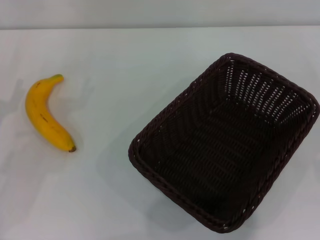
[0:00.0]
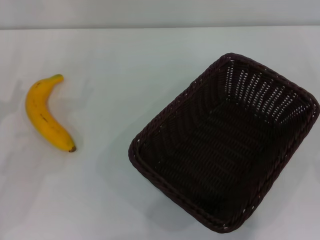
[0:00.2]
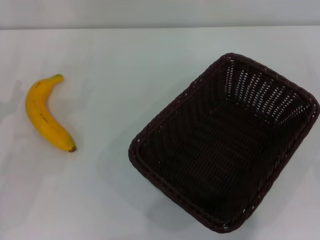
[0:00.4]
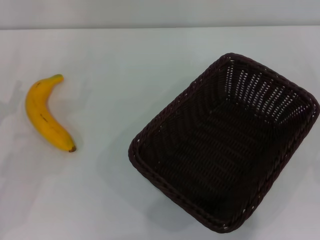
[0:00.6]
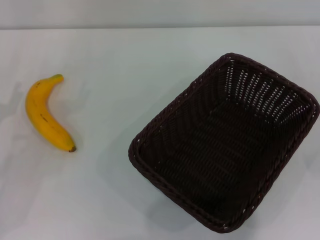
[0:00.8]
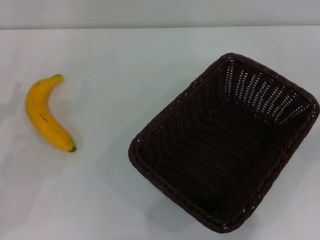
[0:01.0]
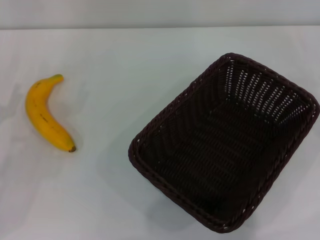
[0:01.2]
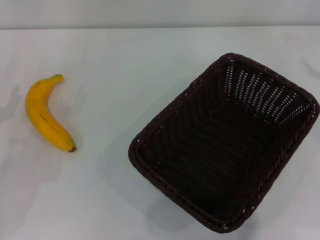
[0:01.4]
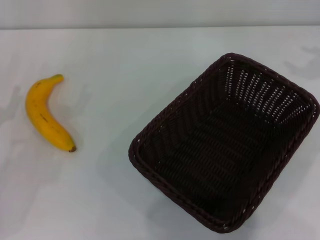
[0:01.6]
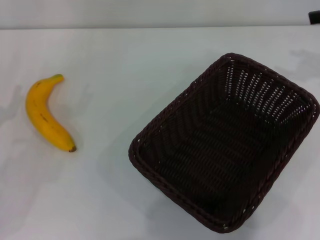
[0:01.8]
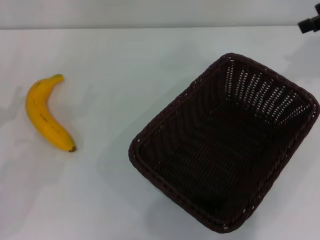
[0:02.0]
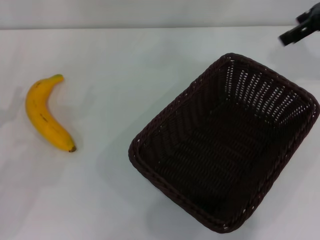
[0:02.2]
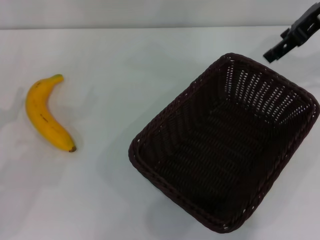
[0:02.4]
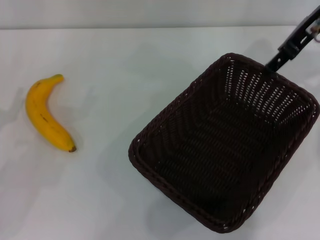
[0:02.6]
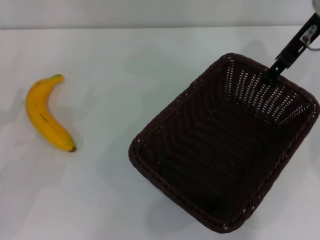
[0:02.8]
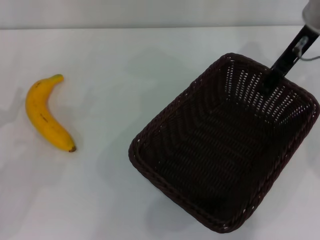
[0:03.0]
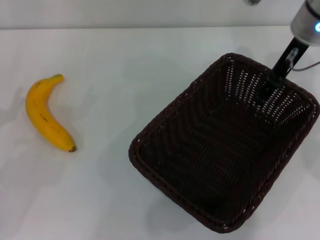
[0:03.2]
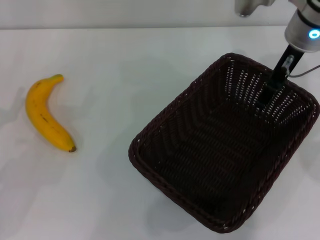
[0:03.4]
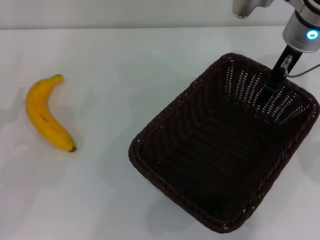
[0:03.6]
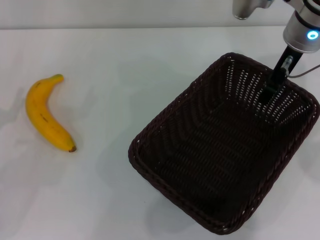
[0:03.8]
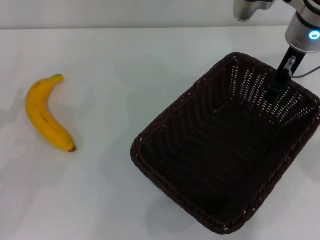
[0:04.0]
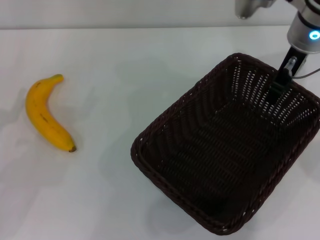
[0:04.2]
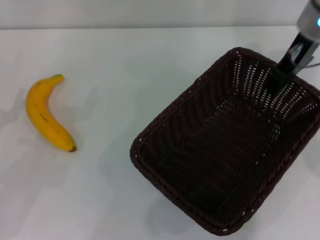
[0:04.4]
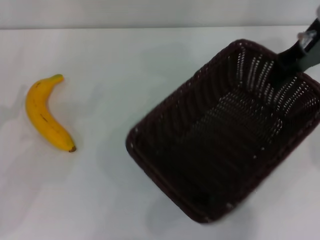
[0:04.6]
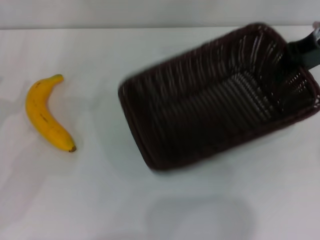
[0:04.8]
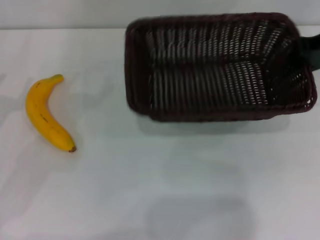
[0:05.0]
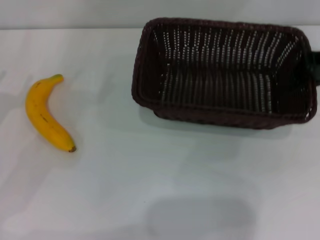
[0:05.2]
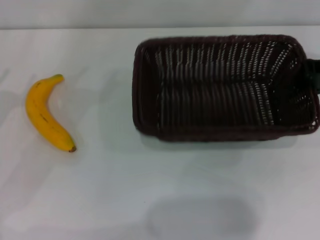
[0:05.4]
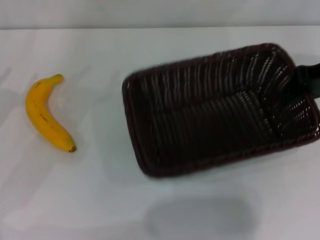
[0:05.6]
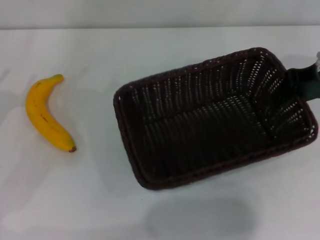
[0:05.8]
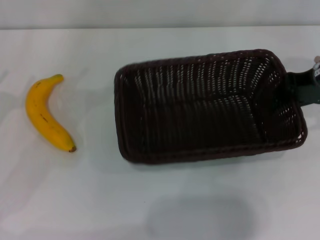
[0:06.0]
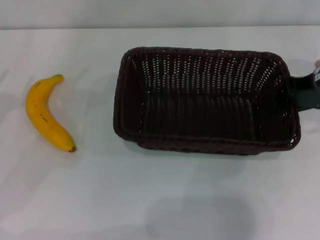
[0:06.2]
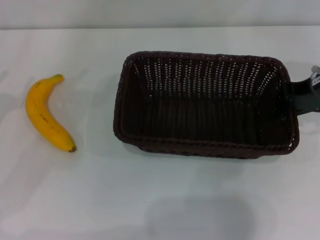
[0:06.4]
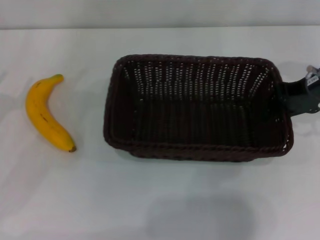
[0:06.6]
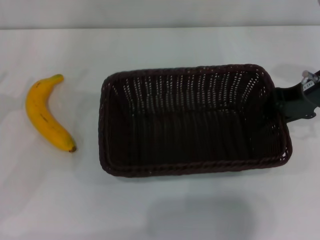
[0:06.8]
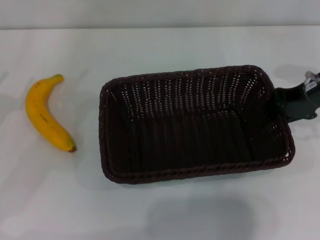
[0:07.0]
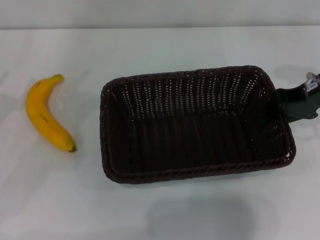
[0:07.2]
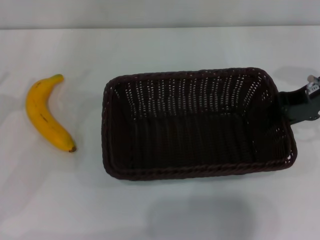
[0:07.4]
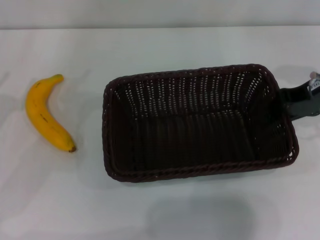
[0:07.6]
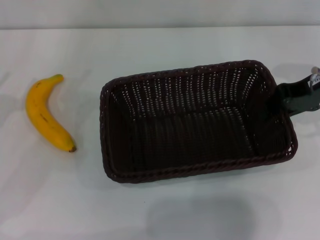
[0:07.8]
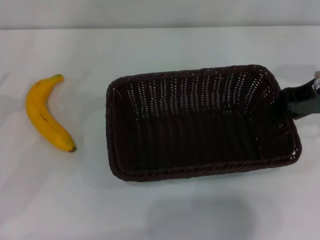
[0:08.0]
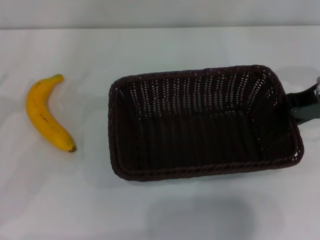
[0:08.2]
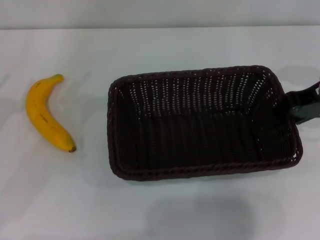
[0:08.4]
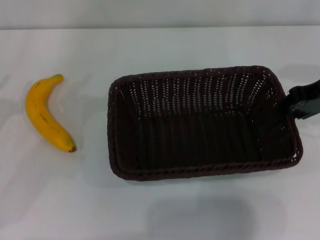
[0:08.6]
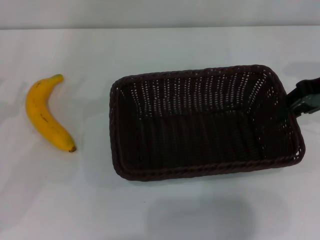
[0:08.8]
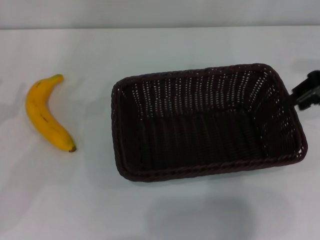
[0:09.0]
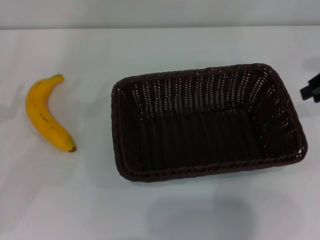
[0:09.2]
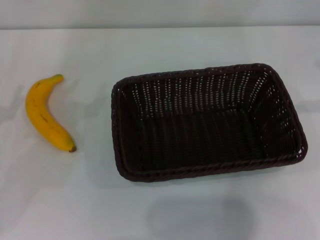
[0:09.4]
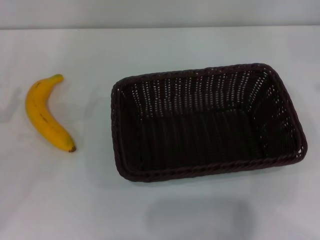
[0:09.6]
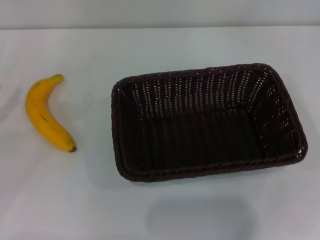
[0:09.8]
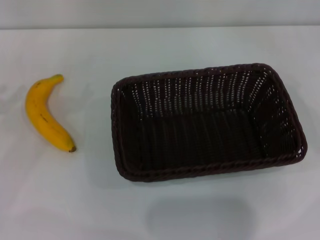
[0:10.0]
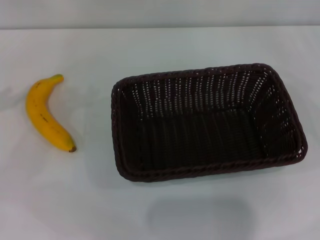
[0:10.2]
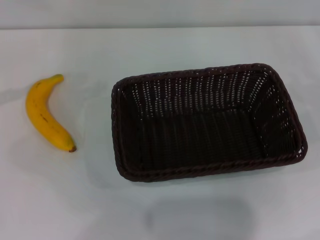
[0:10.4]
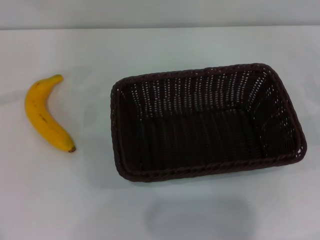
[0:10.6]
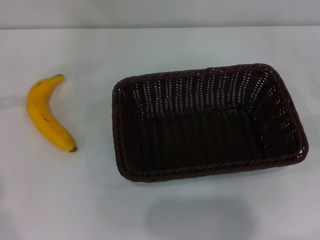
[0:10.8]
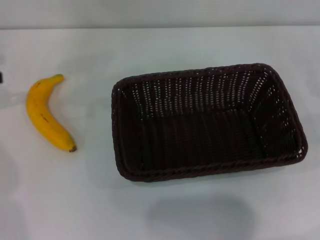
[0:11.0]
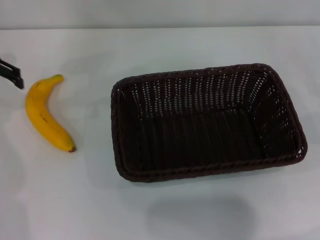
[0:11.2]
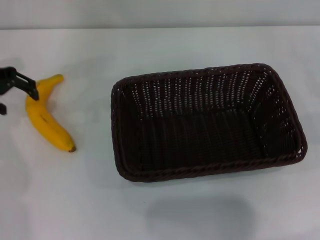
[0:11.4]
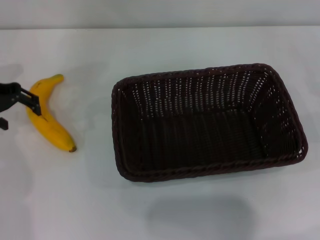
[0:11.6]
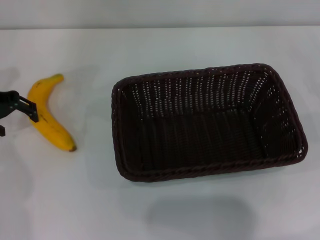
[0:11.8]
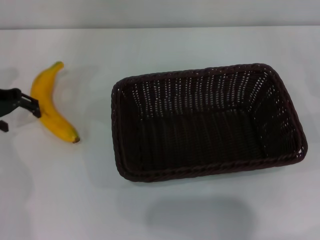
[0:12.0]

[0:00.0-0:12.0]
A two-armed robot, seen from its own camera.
Step, 0:00.0 to 0:04.4: Pick up the dark basket with the right gripper.
Step, 0:04.6 to 0:08.8: Place the dark basket in the center of view with the right gripper.
0:01.6 to 0:03.0: The right gripper moves to the left, approximately 20 cm.
0:03.0 to 0:04.4: The right gripper closes up.
0:04.4 to 0:06.0: The right gripper goes about 5 cm to the right.
0:06.0 to 0:07.6: There are only small adjustments of the grippers.
0:07.6 to 0:09.0: The left gripper closes up; the right gripper ends up approximately 5 cm from where it was.
0:09.0 to 0:10.4: The right gripper travels to the right, downward and backward by some 20 cm.
0:10.4 to 0:12.0: The left gripper is displaced to the right, downward and forward by approximately 10 cm.

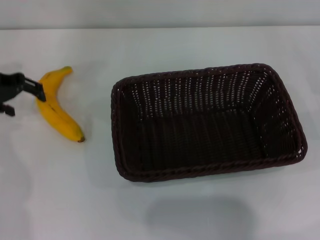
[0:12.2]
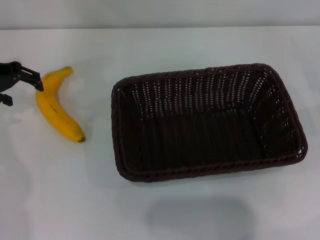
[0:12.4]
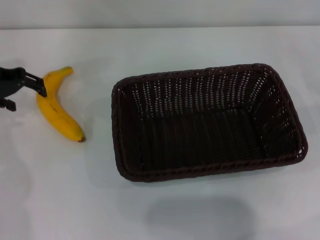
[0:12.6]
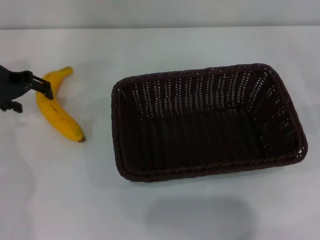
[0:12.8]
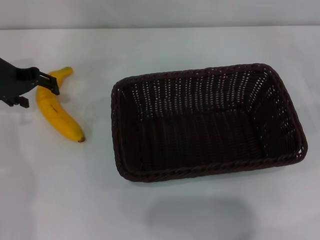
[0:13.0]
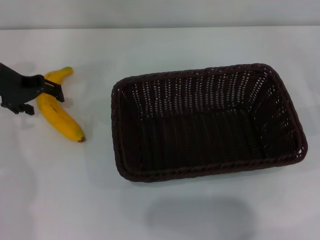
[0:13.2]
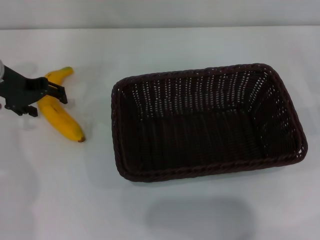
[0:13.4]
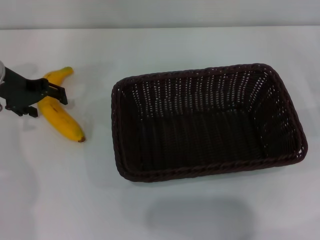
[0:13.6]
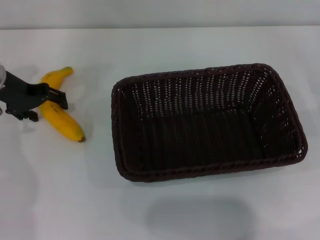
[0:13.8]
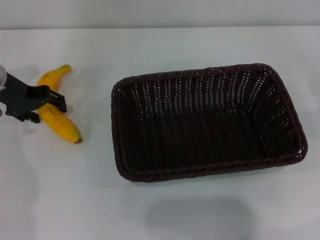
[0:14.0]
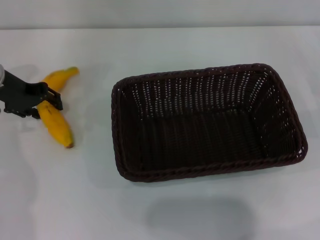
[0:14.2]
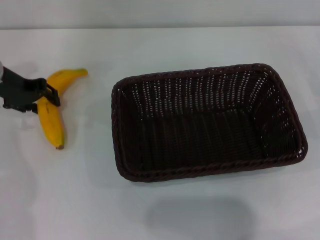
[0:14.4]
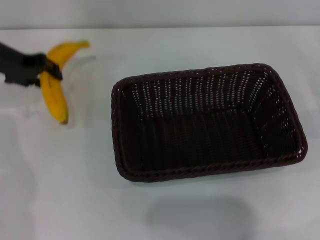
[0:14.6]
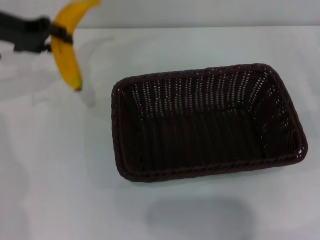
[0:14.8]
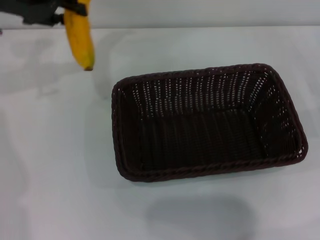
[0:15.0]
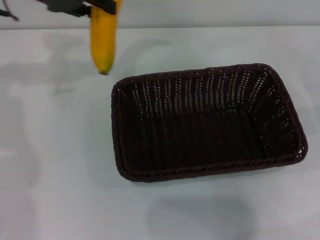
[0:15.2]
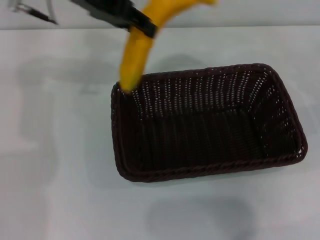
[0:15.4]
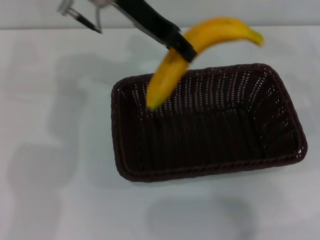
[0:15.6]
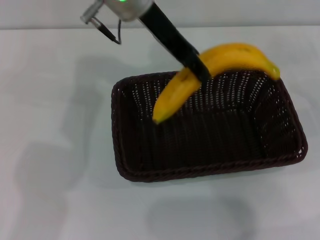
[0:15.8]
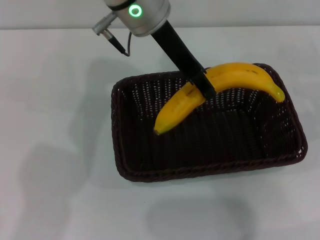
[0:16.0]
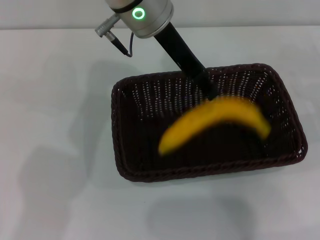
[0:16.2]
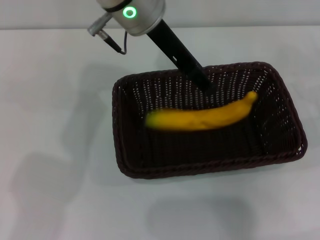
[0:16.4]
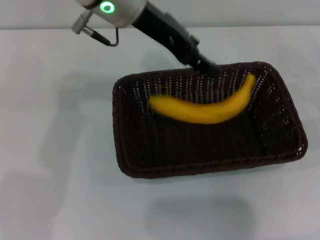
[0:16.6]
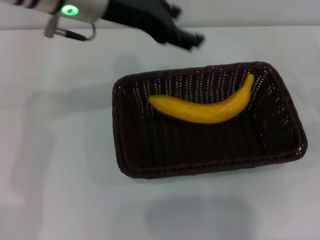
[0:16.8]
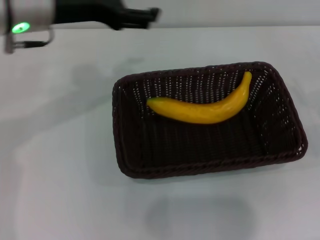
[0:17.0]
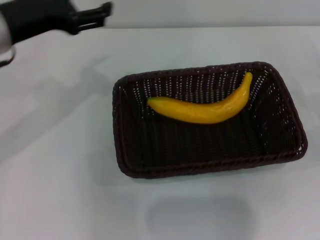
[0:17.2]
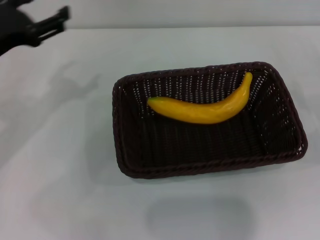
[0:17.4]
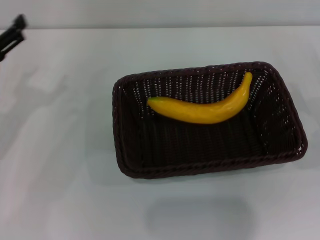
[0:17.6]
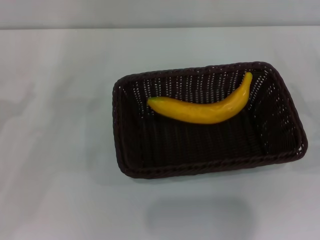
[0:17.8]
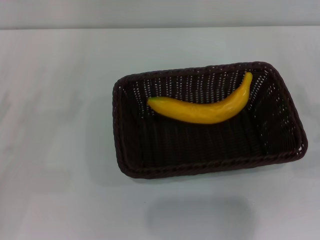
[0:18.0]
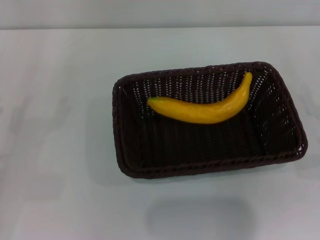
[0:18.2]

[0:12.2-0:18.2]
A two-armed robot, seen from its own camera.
Step, 0:12.2 to 0:14.4: Pick up the banana with the left gripper.
Step, 0:14.8 to 0:16.4: Place the banana into the dark basket with the left gripper.
0:12.2 to 0:13.8: There are only small adjustments of the grippers.
0:13.8 to 0:15.2: The left gripper moves upward, some 15 cm, and closes up.
0:15.2 to 0:16.6: The left gripper travels to the right by some 15 cm, and opens its fingers.
0:16.6 to 0:18.2: The right gripper shifts by some 5 cm, while the left gripper goes some 40 cm to the left, downward and backward.

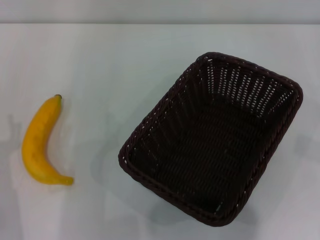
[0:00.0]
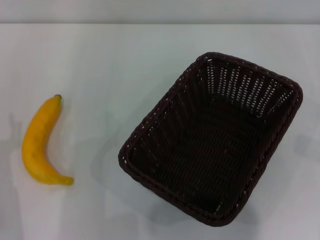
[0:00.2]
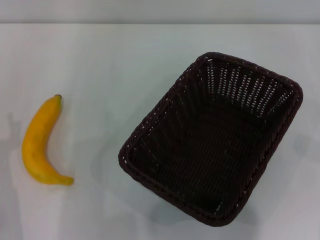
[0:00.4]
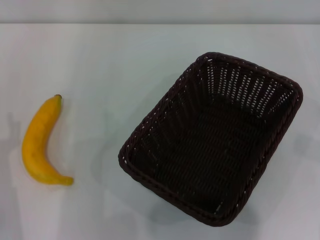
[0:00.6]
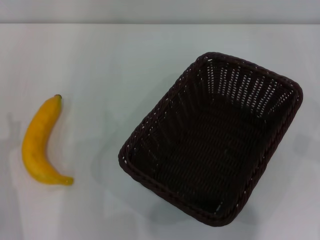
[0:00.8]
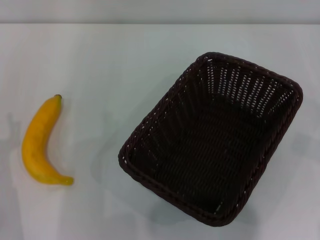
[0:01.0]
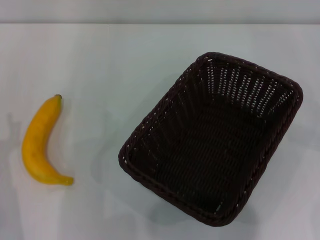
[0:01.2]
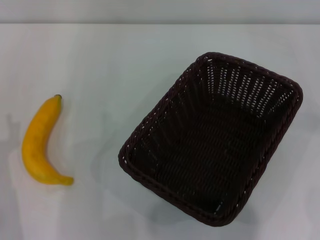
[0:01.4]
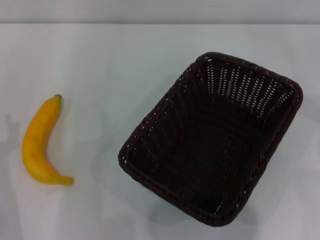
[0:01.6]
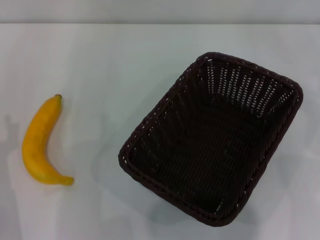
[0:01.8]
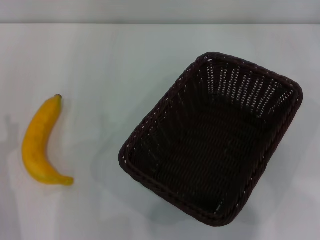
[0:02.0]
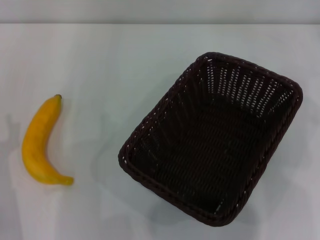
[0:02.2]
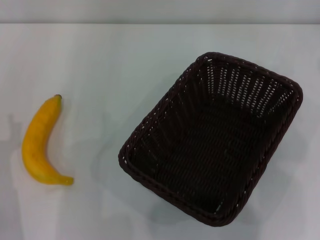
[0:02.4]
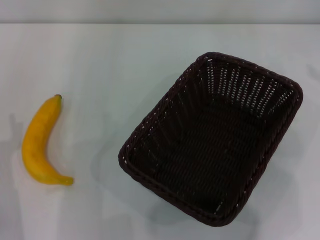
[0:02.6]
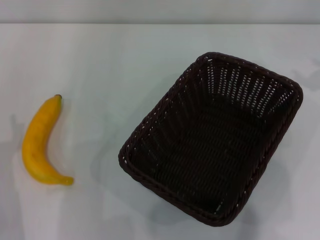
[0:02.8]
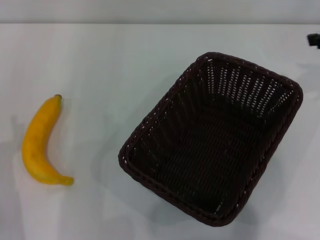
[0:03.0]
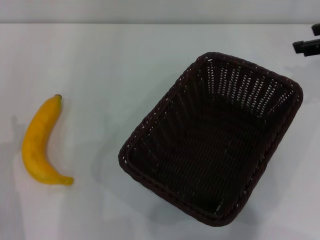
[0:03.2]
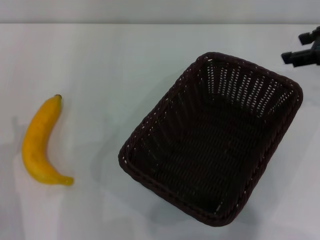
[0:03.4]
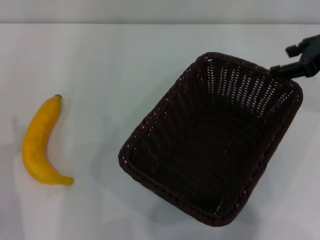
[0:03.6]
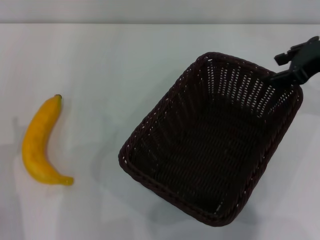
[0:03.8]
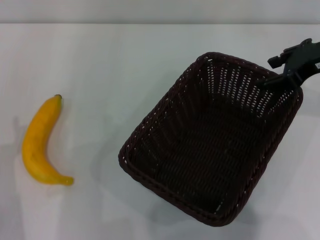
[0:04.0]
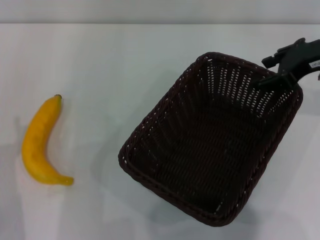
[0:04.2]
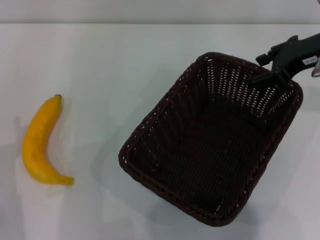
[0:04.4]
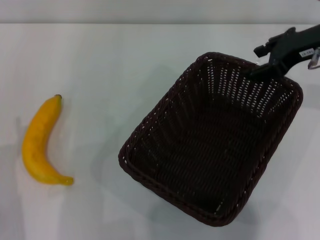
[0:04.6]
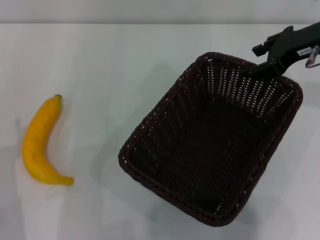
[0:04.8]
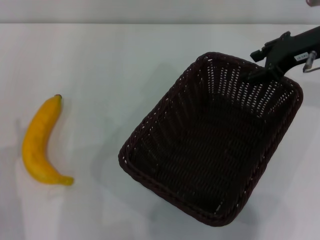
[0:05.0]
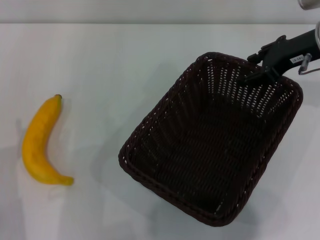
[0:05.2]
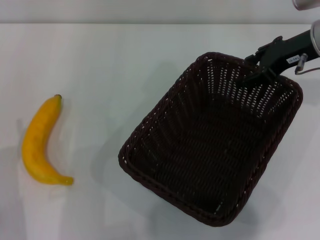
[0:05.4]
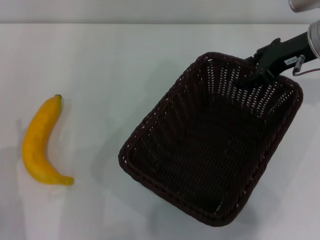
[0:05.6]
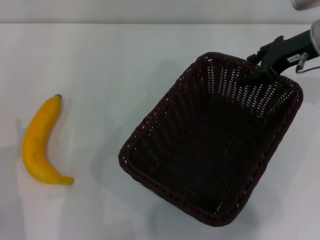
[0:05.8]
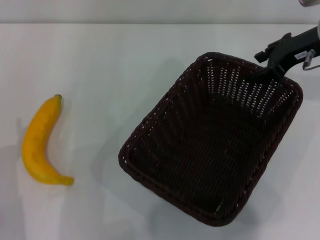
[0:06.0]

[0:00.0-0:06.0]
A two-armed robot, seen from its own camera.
0:03.0 to 0:04.4: The right gripper shifts roughly 10 cm to the left.
0:04.4 to 0:06.0: There are only small adjustments of the grippers.
